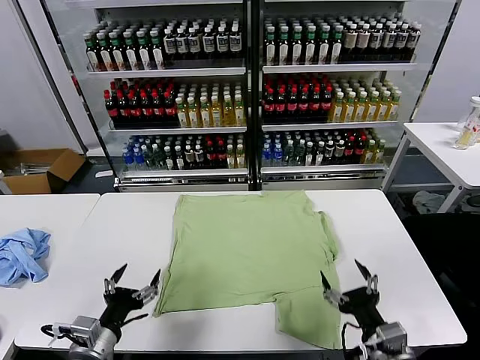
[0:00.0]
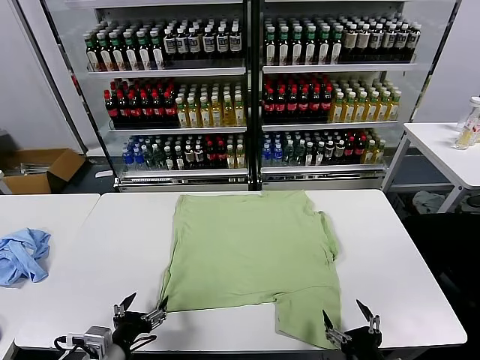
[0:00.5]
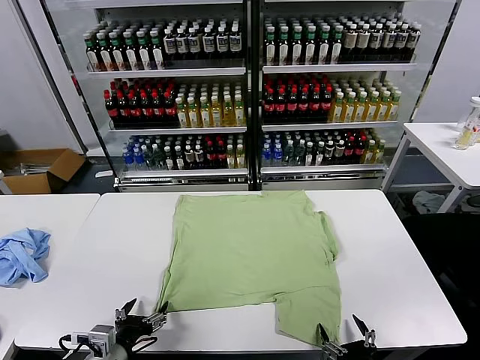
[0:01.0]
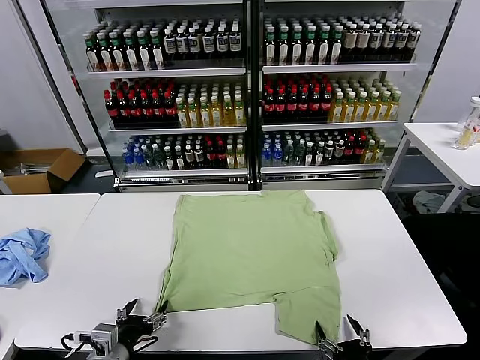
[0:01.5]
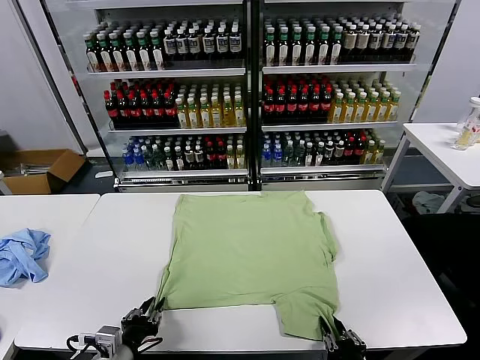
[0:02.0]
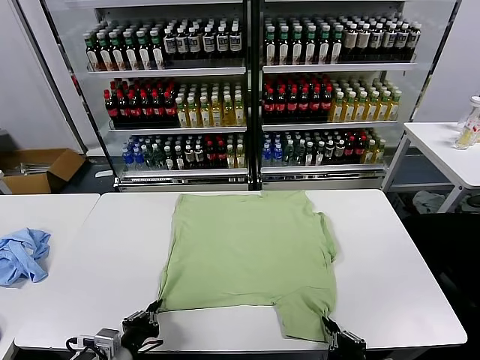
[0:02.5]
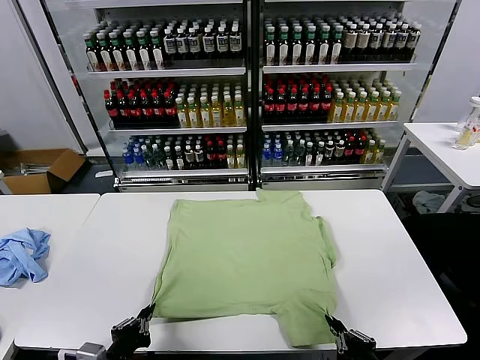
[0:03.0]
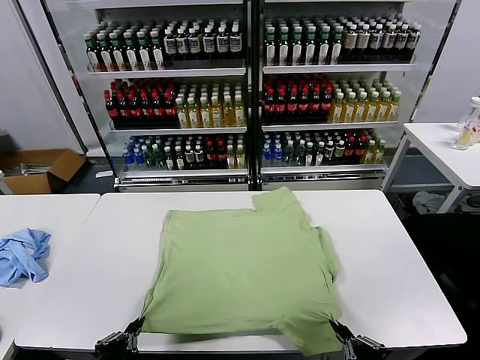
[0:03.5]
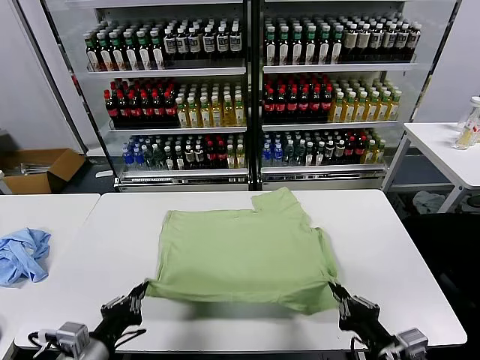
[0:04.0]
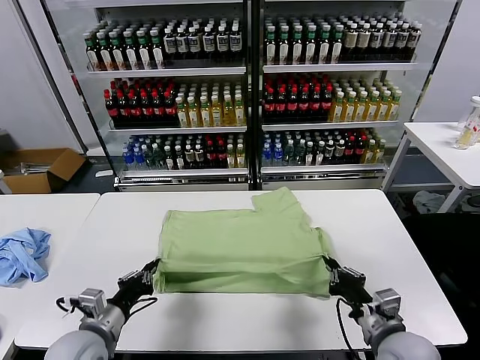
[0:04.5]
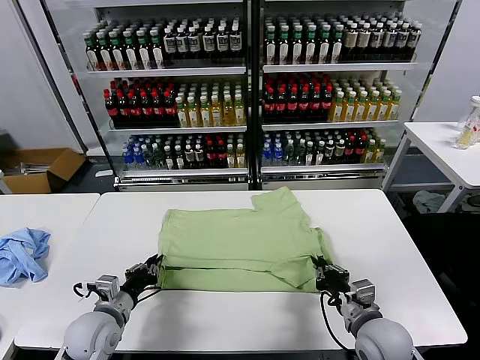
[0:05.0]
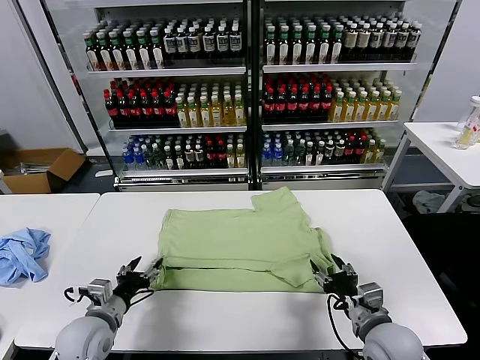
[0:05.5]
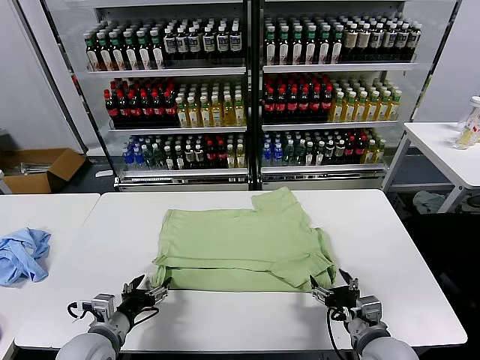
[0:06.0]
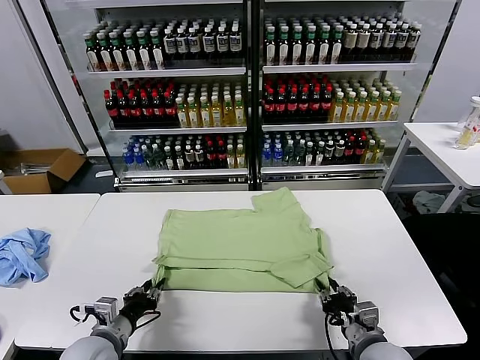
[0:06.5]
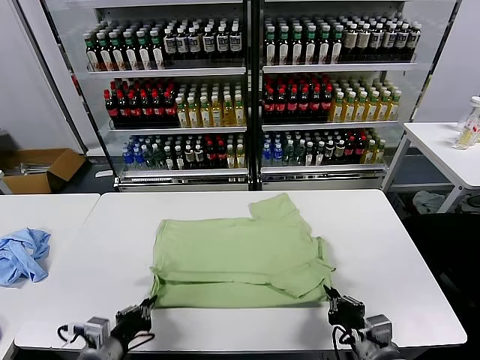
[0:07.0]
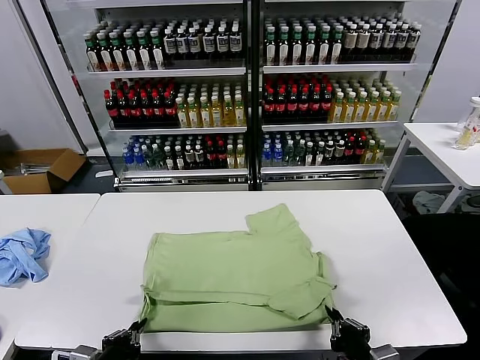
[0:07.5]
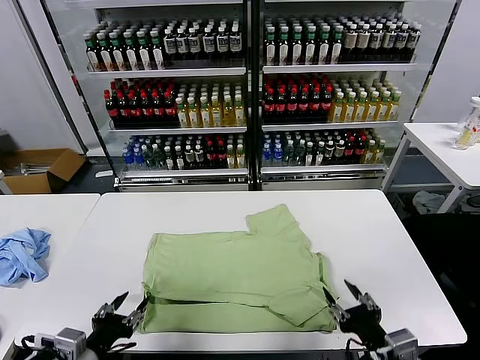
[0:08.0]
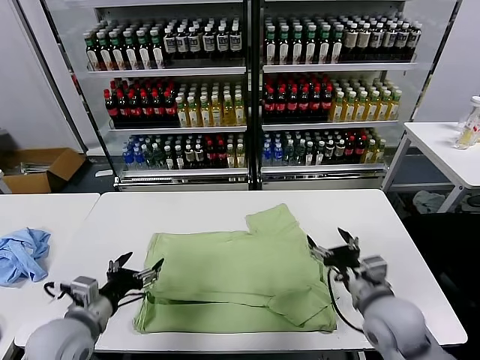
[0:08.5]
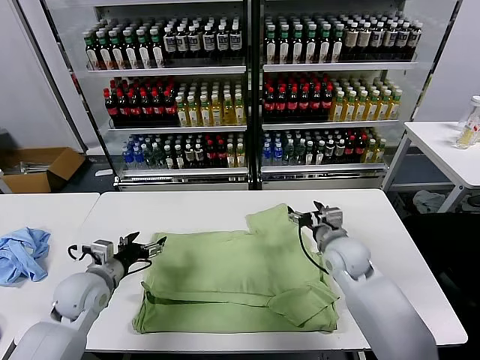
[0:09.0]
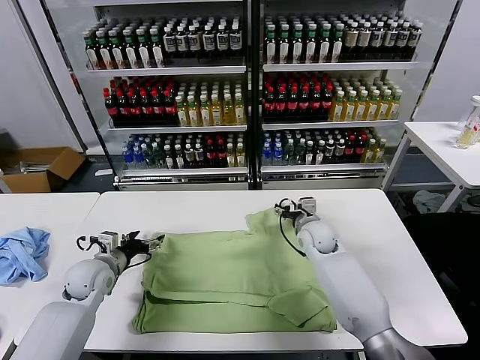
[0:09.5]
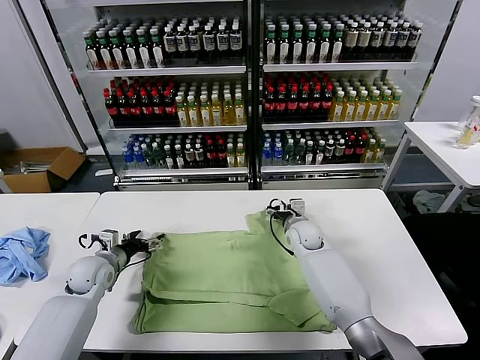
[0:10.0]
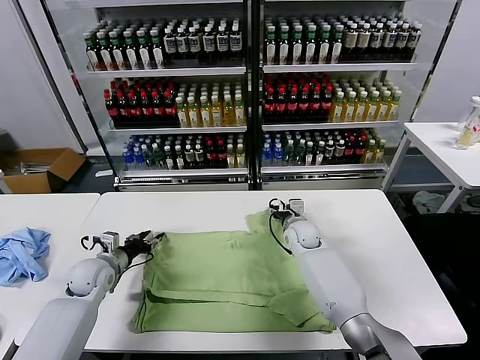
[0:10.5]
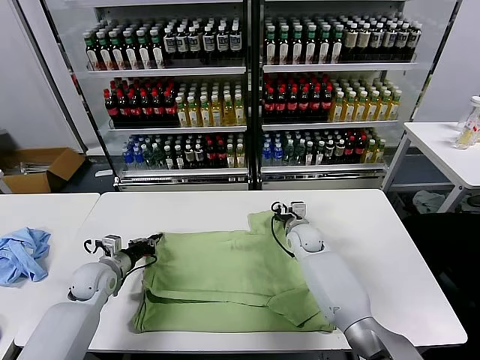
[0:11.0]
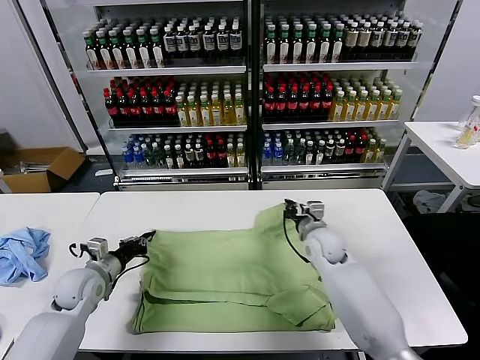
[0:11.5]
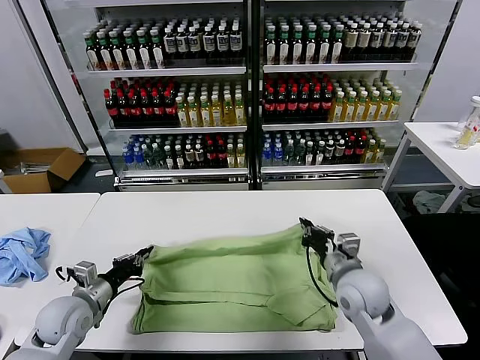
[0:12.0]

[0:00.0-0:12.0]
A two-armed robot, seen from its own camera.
Task of the whole recording: fold and organize the clothes.
Step, 0:00.0 to 0:02.5: use both grippers simultaneously to clamp the lower edge of the clothing fabric.
Step, 0:03.0 to 0:05.0: use both grippers to drag the lower edge of the fabric forward and fold it over the upper edge.
Step, 0:06.0 to 0:07.5: Drag the clothes downward with both gripper.
Step, 0:08.0 to 0:11.0: use both grippers simultaneously to clamp the upper edge of the clothing fabric.
0:02.0 to 0:04.0: The right gripper moves upward and forward, about 10 cm. The left gripper heads upward, covering about 10 cm, goes backward and returns, some 10 cm each way, and closes.
0:04.0 to 0:06.0: The right gripper moves downward and forward, roughly 10 cm, and opens. The left gripper travels forward and downward by roughly 10 cm, and opens up.
0:06.0 to 0:08.0: The right gripper shifts roughly 10 cm upward and backward, and closes and opens again; the left gripper heads backward and upward, covering roughly 10 cm, and closes up.
0:08.0 to 0:10.0: The two grippers go about 35 cm forward. The left gripper opens.
0:10.0 to 0:12.0: The left gripper moves backward, about 10 cm, and closes its fingers. Meanwhile the right gripper moves backward, about 20 cm, and closes up.

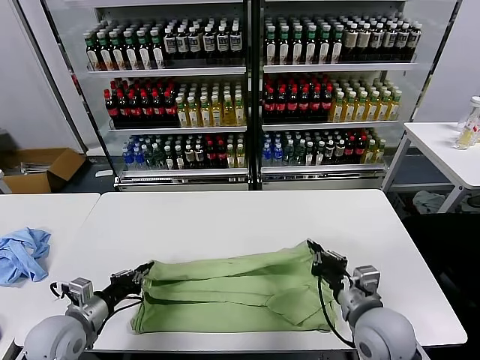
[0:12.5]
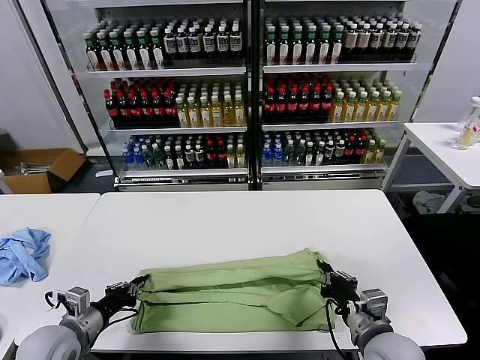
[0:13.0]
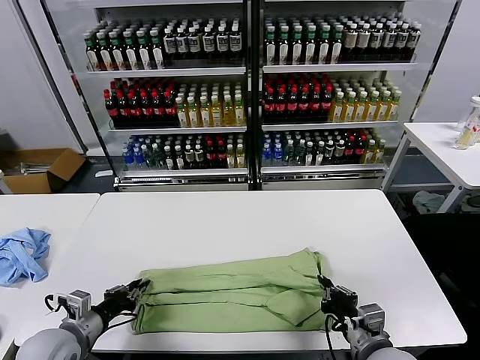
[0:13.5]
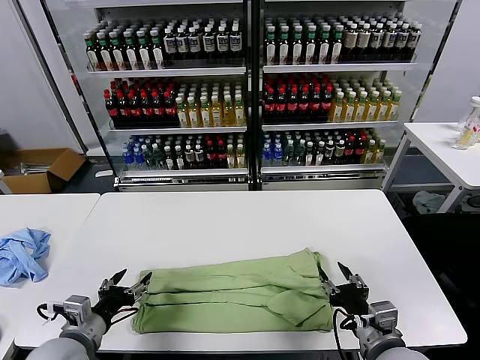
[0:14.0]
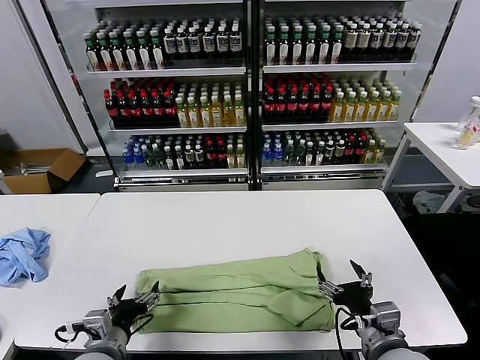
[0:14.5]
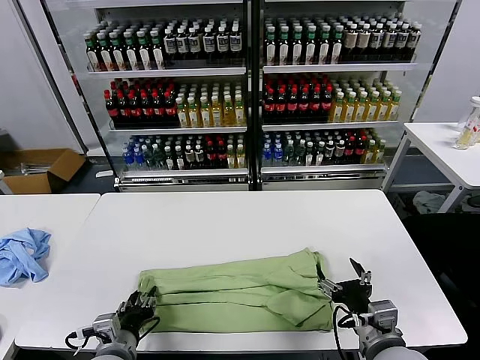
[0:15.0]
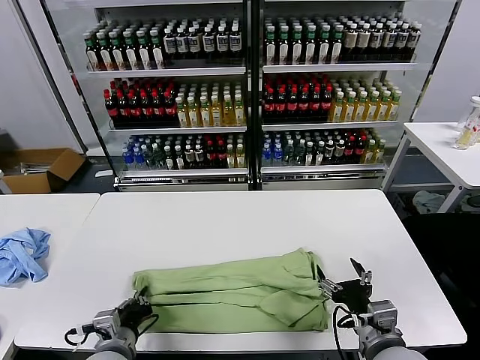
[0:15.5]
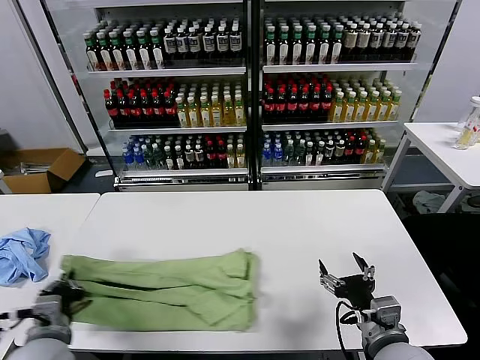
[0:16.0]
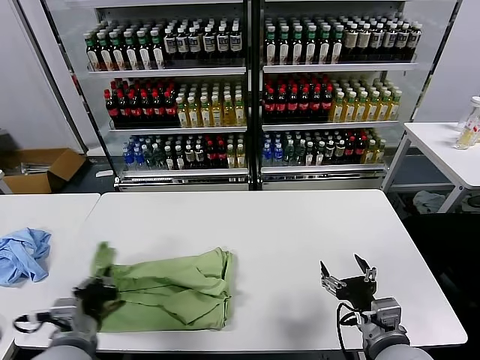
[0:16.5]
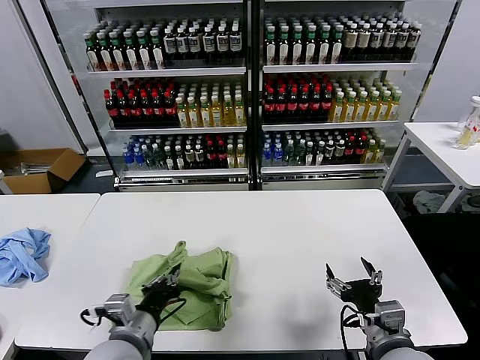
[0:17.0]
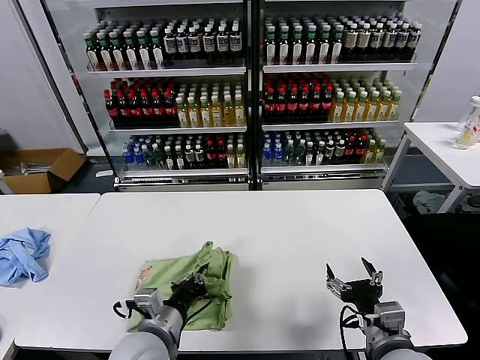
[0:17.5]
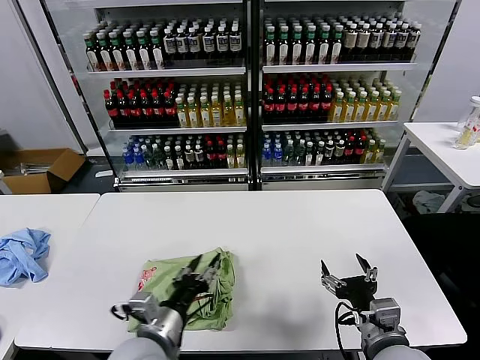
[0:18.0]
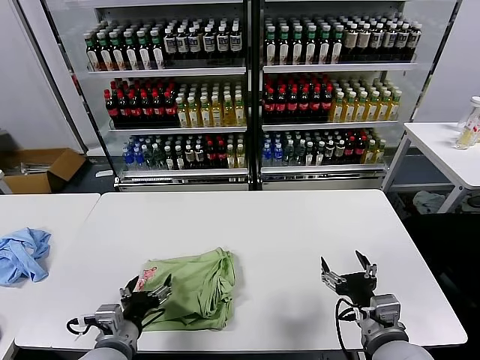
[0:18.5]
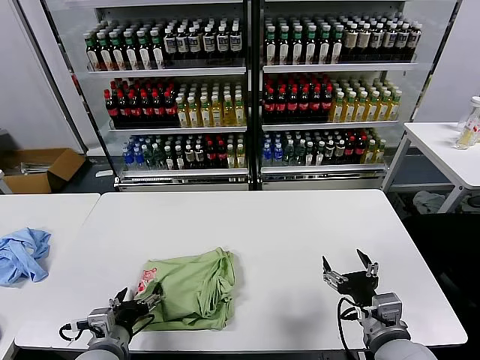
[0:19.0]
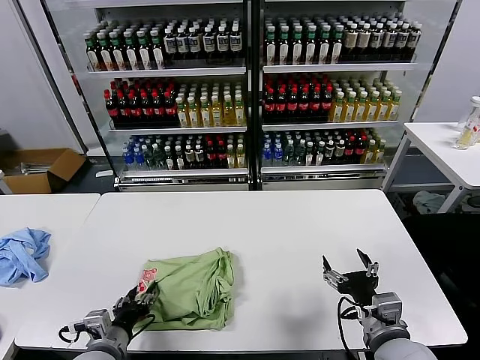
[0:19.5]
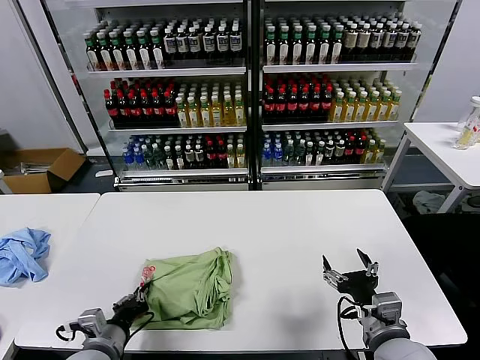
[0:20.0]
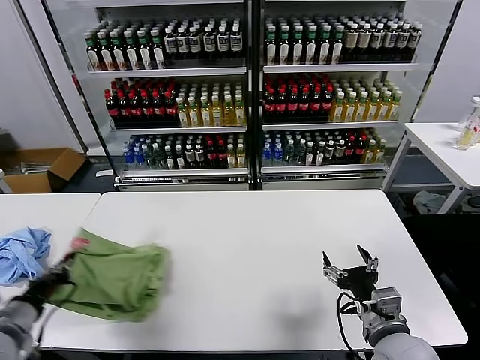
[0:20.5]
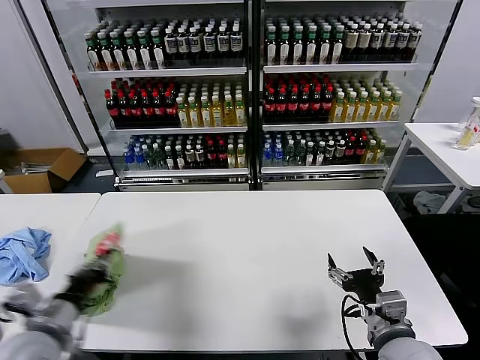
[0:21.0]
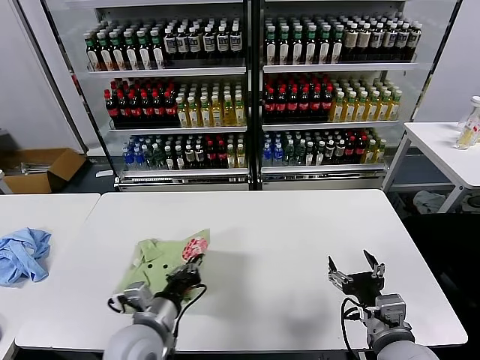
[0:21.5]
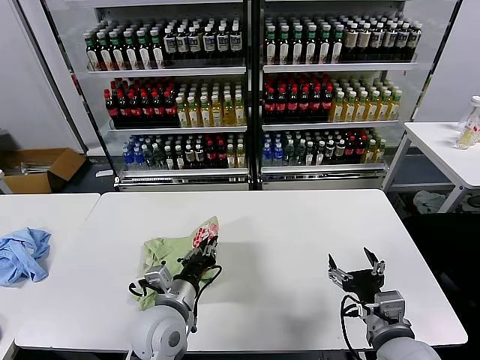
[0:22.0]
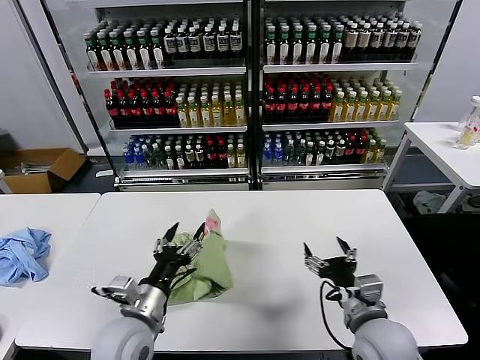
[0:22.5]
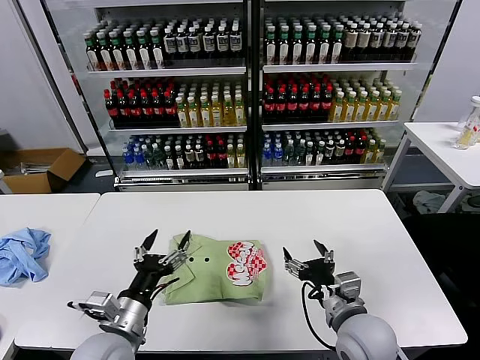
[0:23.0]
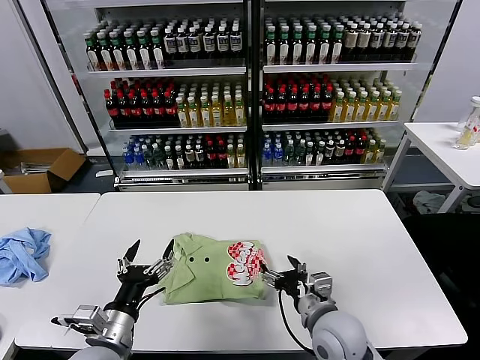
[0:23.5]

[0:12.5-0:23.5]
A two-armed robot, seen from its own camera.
Task of the whole recording: fold and organize the clothes.
Step, 0:14.0 to 0:15.0: use the left gripper to clamp the left edge of the fabric.
Step, 0:15.5 to 0:17.5: use the left gripper to drag the left edge of the fabric to the left and folds it over the right edge.
Step, 0:18.0 to 0:22.5: Flip the folded clothes over with left gripper.
0:12.5 to 0:14.5: The left gripper moves to the right and backward, some 10 cm, and opens its fingers. Meanwhile the right gripper moves backward, roughly 5 cm, and opens its fingers.
0:14.5 to 0:16.0: The left gripper travels to the left by some 5 cm, and closes.
0:16.0 to 0:18.0: The left gripper travels to the right by about 15 cm, and opens up.
0:18.0 to 0:20.0: The left gripper goes approximately 15 cm to the left and downward, and closes up.
0:20.0 to 0:21.5: The left gripper shifts roughly 10 cm to the right and upward.
0:21.5 to 0:23.5: The left gripper travels to the left by roughly 5 cm, and opens up. The right gripper goes some 10 cm to the left and forward.

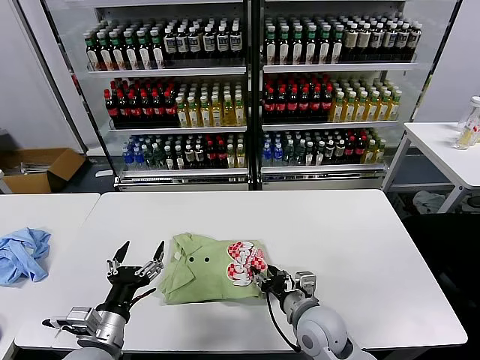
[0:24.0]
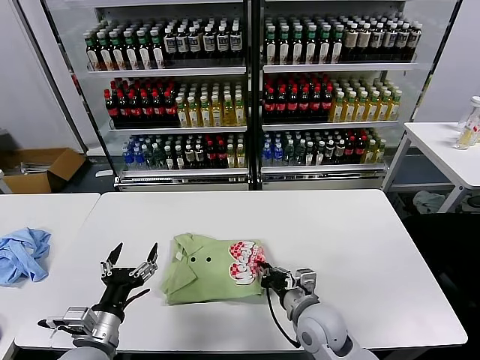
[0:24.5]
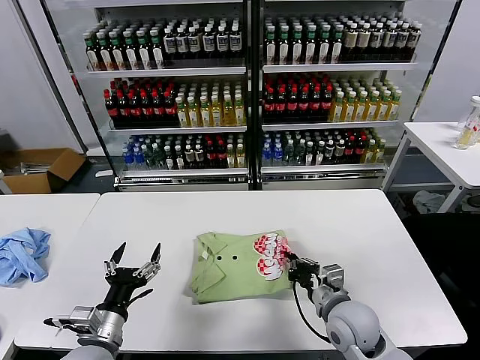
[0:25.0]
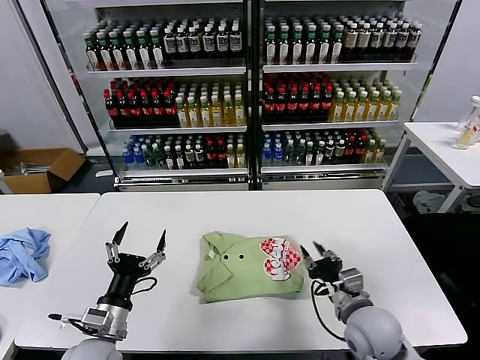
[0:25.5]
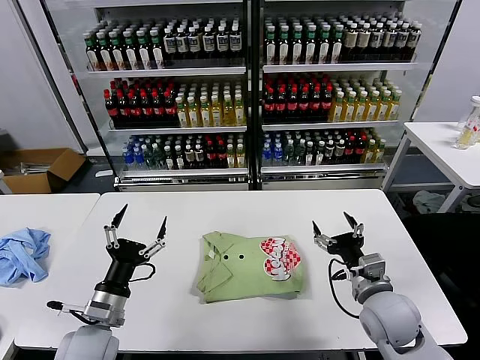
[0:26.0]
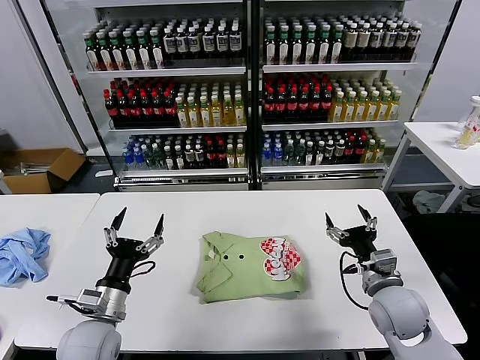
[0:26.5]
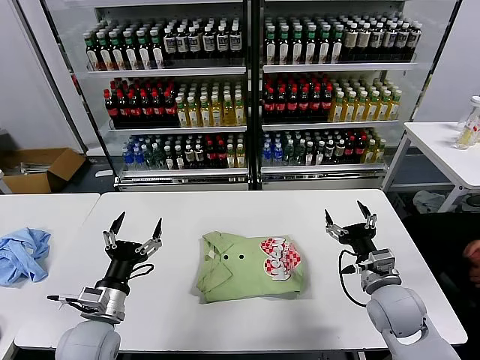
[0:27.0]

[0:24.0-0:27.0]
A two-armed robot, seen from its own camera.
Task of the whole recording: fold and organize the clothes.
Step, 0:24.0 to 0:25.5: Drag the clothes to the center of the table.
0:24.0 to 0:25.5: The right gripper goes some 10 cm to the right, and closes its fingers.
0:25.5 to 0:27.0: The right gripper is displaced to the right by roughly 5 cm, and opens its fingers.
